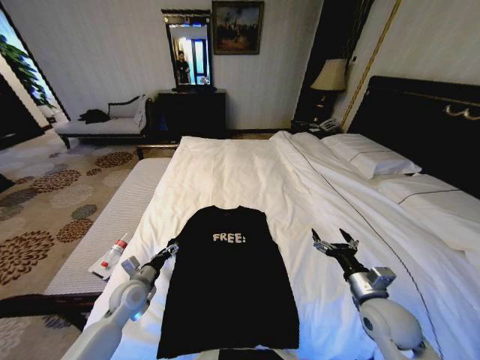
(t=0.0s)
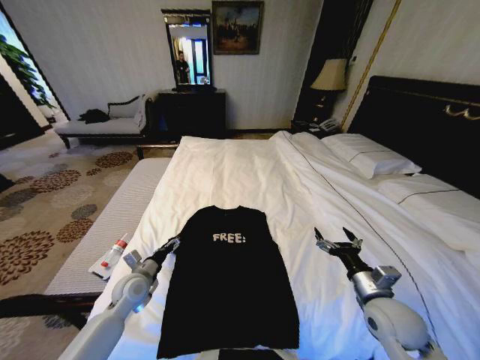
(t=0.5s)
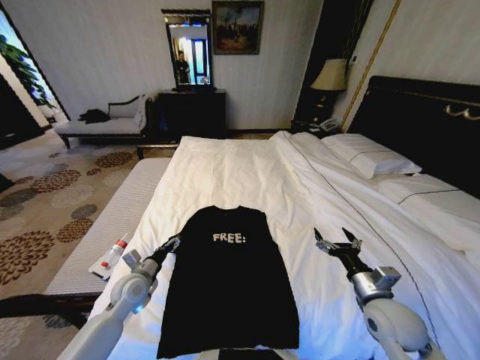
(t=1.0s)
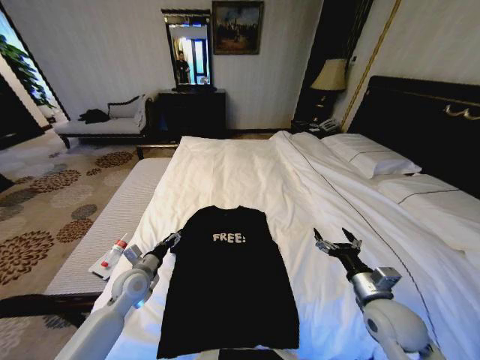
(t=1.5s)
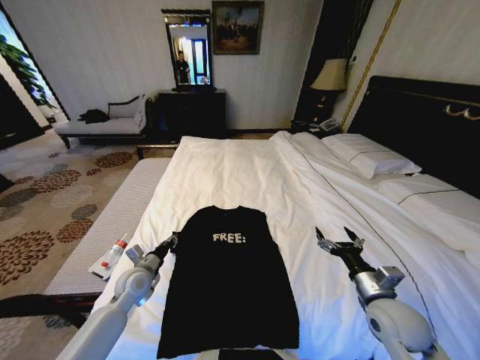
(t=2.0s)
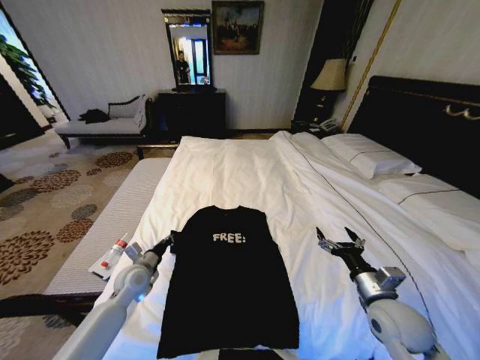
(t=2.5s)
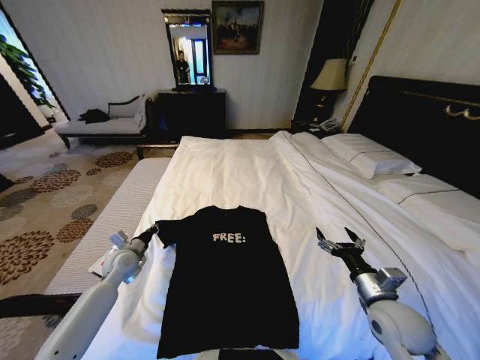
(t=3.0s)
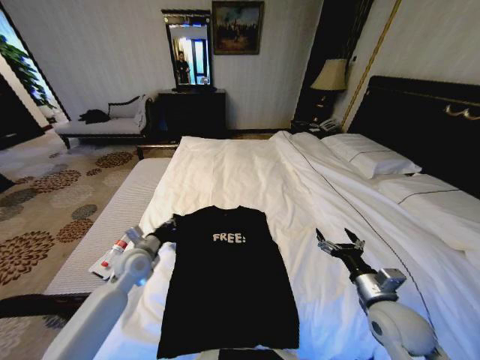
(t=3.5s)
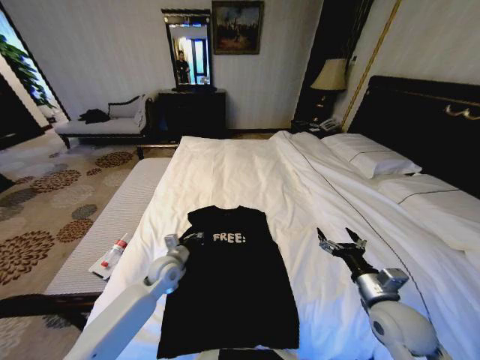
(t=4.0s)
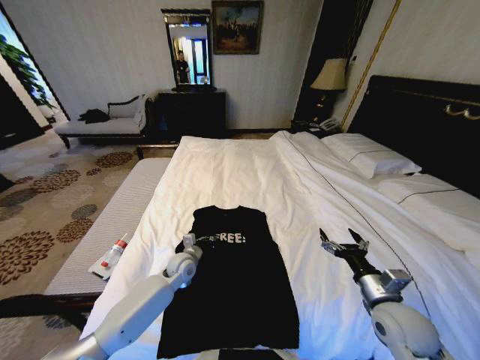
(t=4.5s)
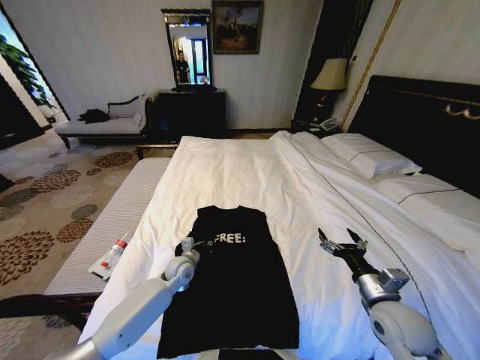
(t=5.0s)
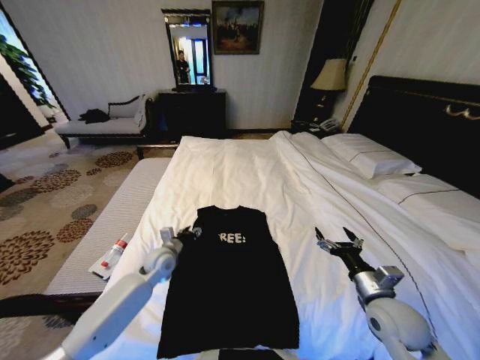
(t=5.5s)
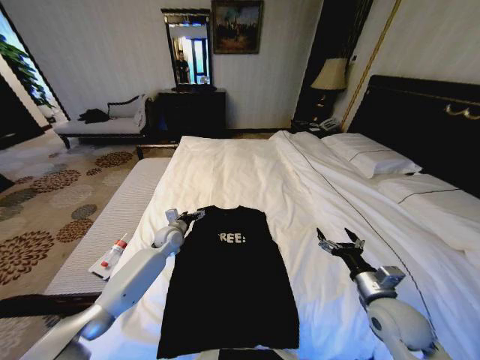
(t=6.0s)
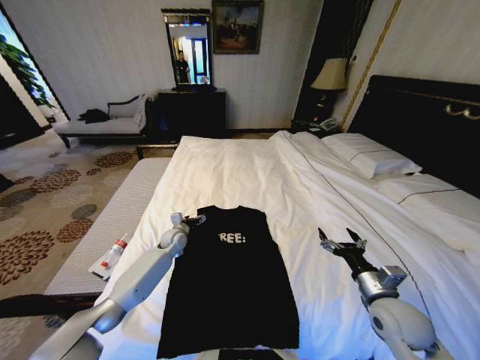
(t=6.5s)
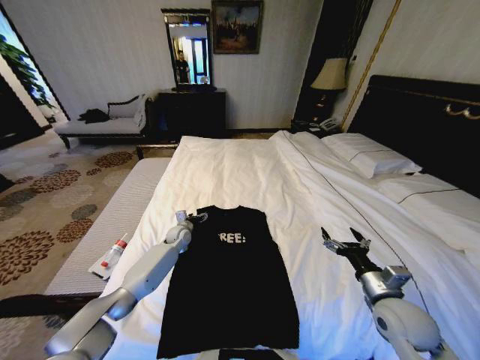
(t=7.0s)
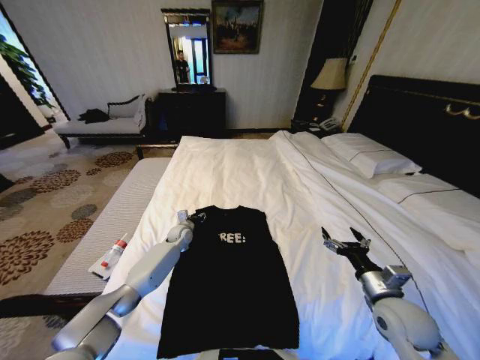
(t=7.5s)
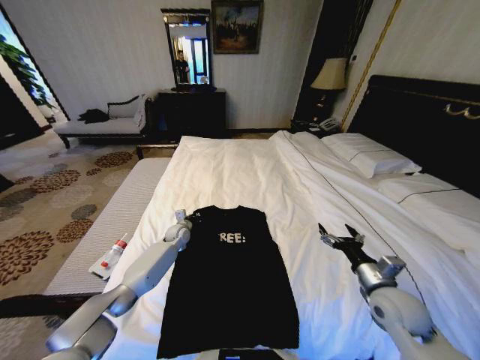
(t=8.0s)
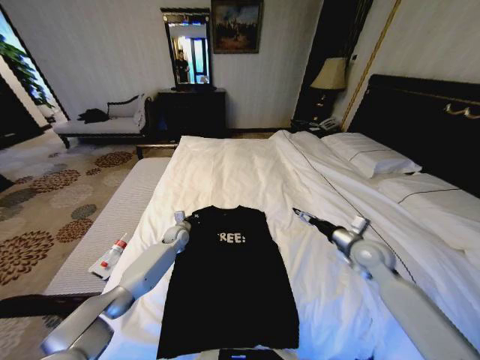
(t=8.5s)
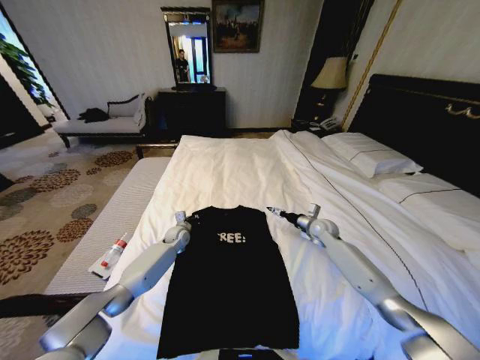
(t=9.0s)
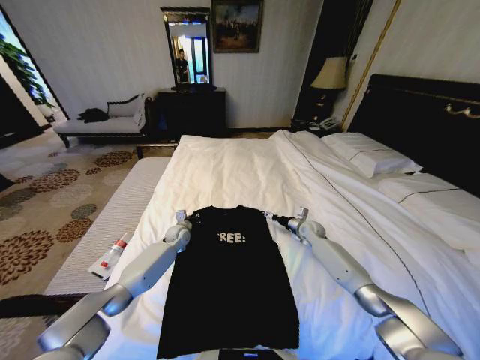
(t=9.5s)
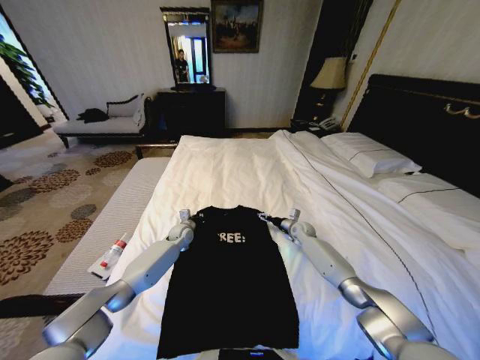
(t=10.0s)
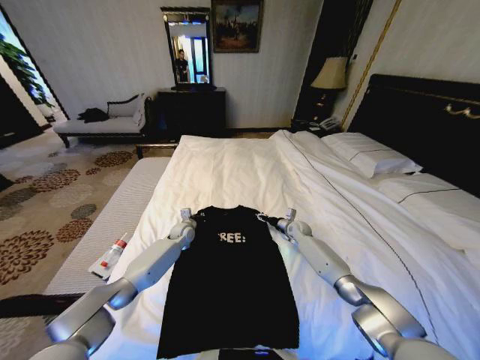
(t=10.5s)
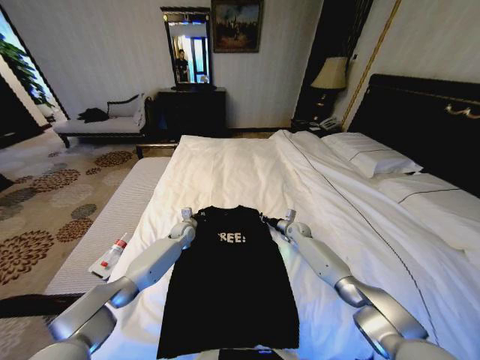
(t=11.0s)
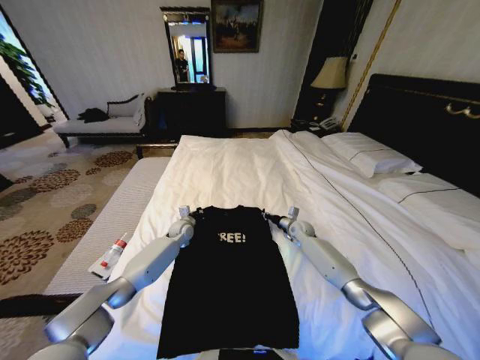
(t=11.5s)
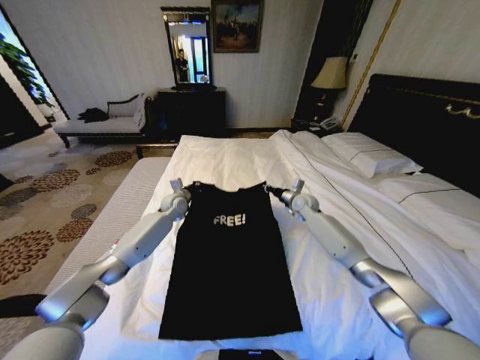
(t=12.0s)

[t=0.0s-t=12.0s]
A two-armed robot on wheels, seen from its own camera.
Task of the whole recording: Fold the clothes on the bed.
t=0.0s to t=2.0s: The left gripper closes.
t=2.0s to t=4.0s: The left gripper moves to the right, approximately 10 cm.
t=4.0s to t=6.0s: The left gripper shifts approximately 10 cm forward, and opens up.
t=6.0s to t=8.0s: The left gripper is displaced downward and forward by about 5 cm, and closes up.
t=8.0s to t=10.0s: The right gripper heads forward and downward, covering roughly 35 cm.
t=10.0s to t=12.0s: The left gripper is displaced upward and forward by about 15 cm. The right gripper shifts some 15 cm upward, and closes.

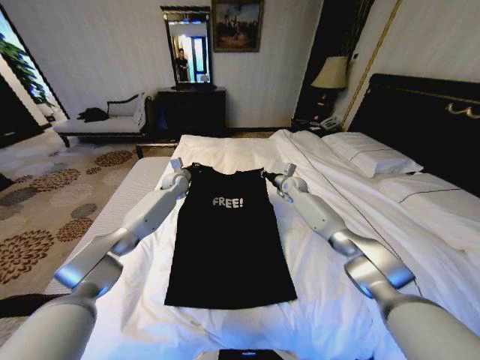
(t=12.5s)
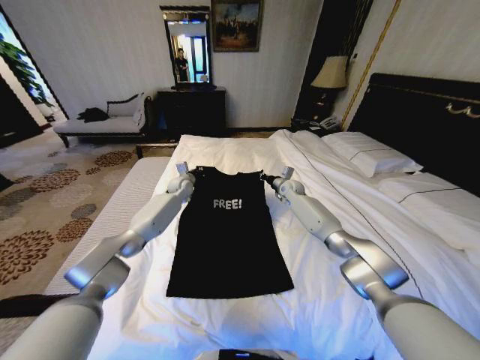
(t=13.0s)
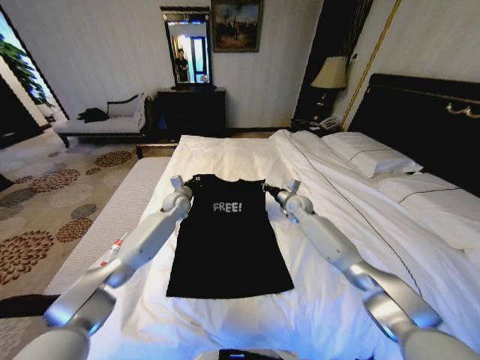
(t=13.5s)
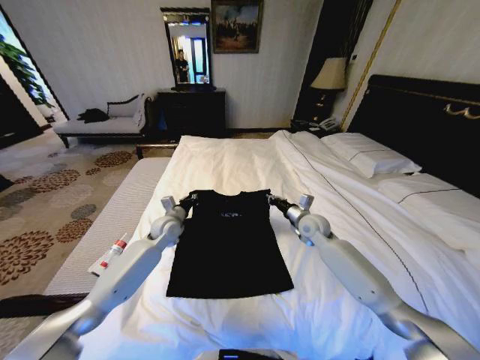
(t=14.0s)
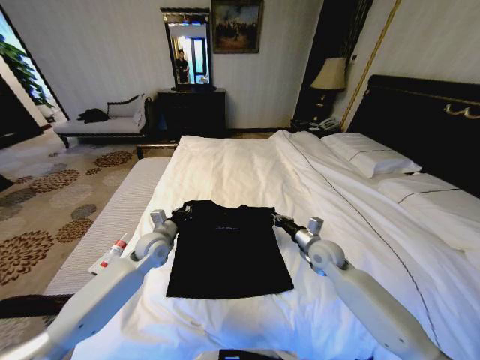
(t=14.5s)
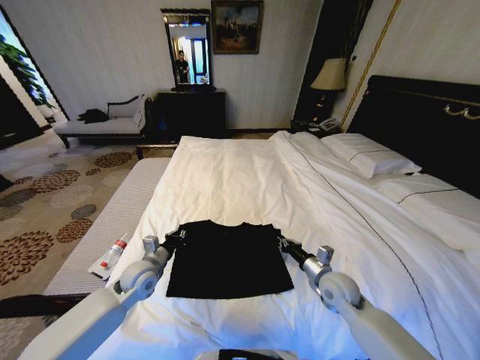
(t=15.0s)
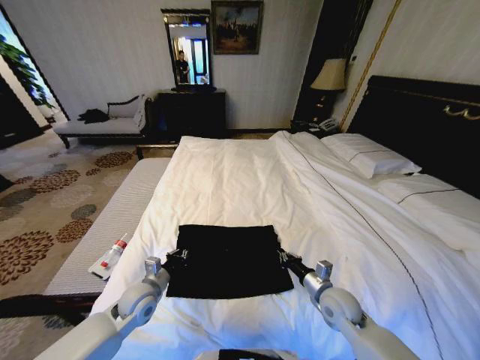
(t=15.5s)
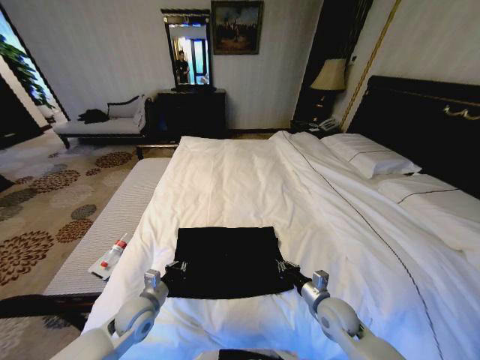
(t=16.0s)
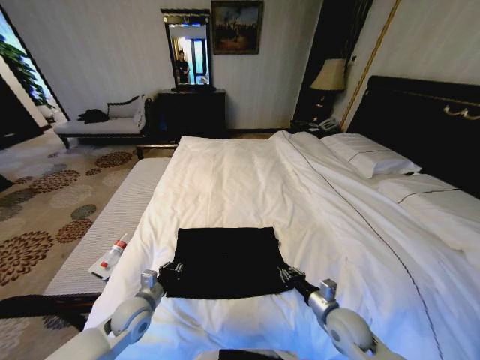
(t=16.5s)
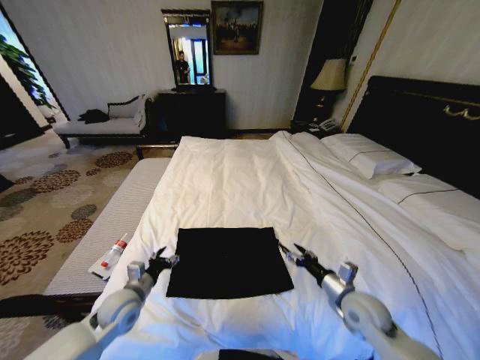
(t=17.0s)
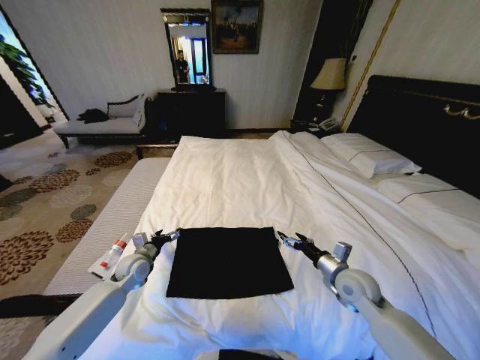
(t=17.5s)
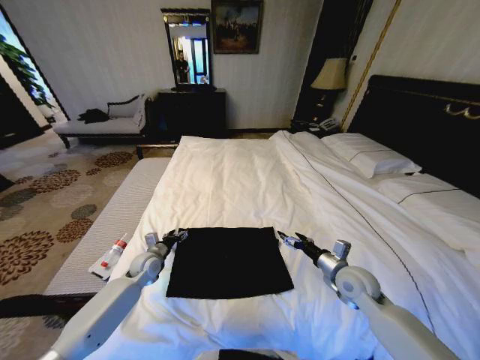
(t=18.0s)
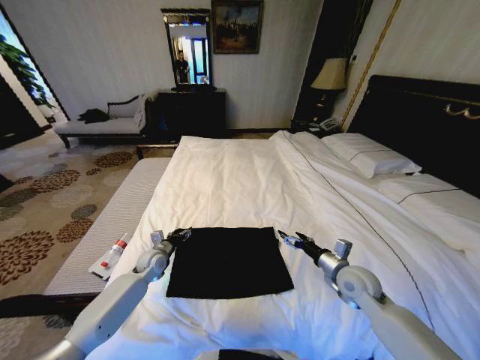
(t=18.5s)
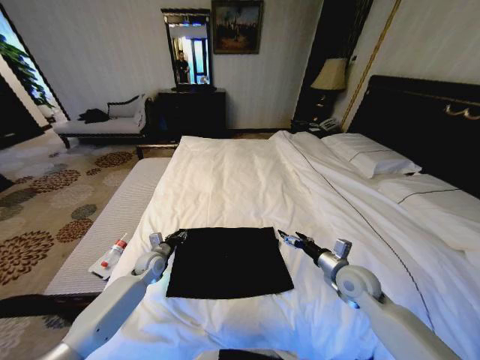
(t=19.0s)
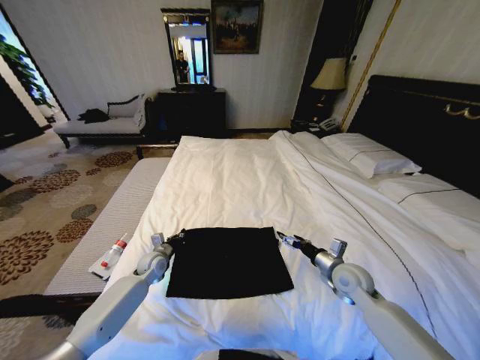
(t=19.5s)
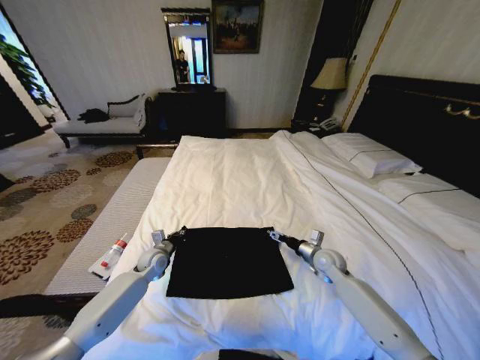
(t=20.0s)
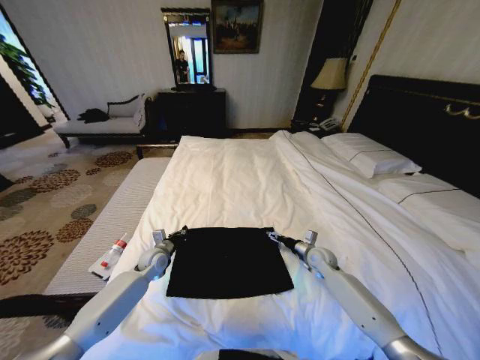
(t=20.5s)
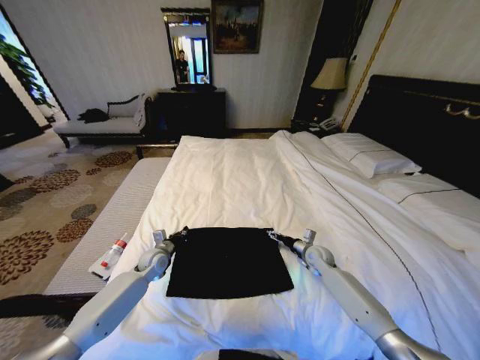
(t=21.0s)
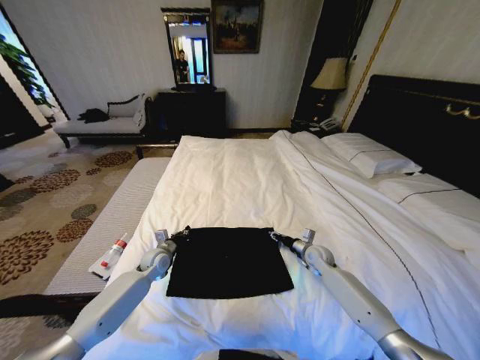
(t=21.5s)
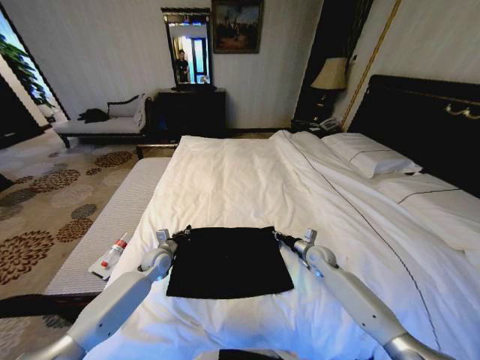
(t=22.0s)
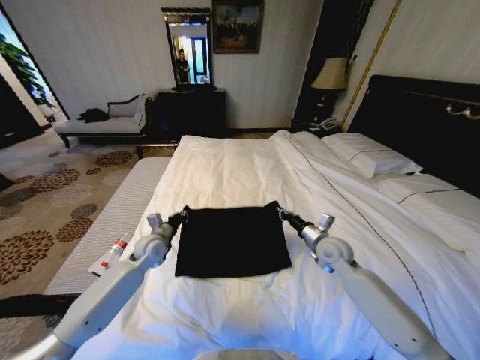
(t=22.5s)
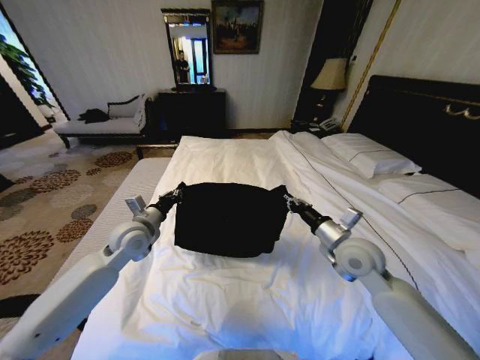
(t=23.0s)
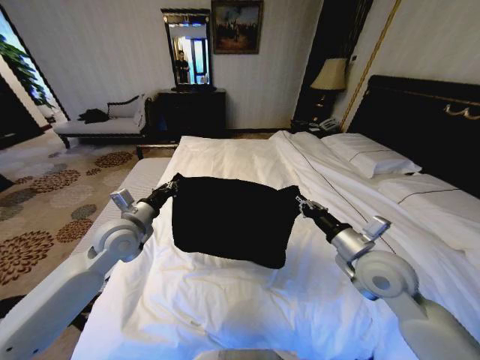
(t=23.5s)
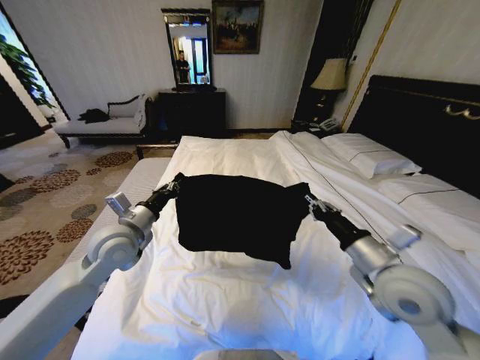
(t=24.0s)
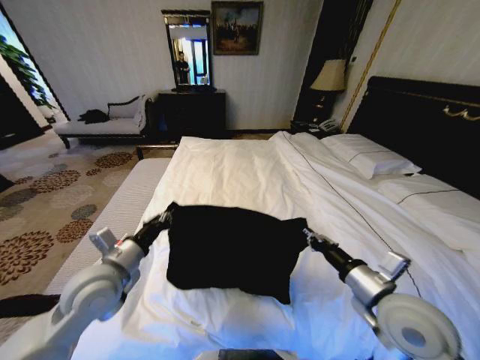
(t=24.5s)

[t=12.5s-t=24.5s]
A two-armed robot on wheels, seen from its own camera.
Task of the whole recording: Fold the clothes on the bed.
t=12.5s to t=14.5s: The two grippers go about 25 cm backward.
t=14.5s to t=16.5s: The grippers both shift backward and downward by some 20 cm.
t=16.5s to t=18.5s: The right gripper heads forward and upward, covering approximately 10 cm, and opens, while the left gripper shifts roughly 15 cm forward, and opens.
t=18.5s to t=20.5s: The left gripper closes up; the right gripper heads forward and downward, covering about 15 cm.
t=20.5s to t=22.5s: The right gripper moves upward, approximately 10 cm, and closes. The left gripper moves upward, roughly 10 cm.
t=22.5s to t=24.5s: The two grippers go about 20 cm backward and upward.

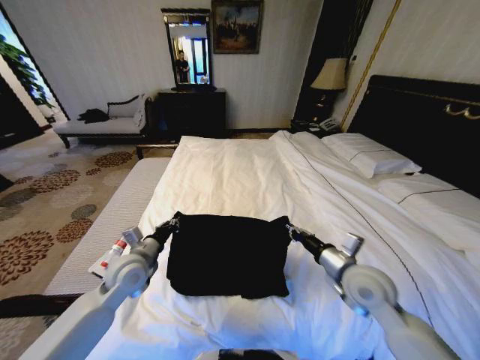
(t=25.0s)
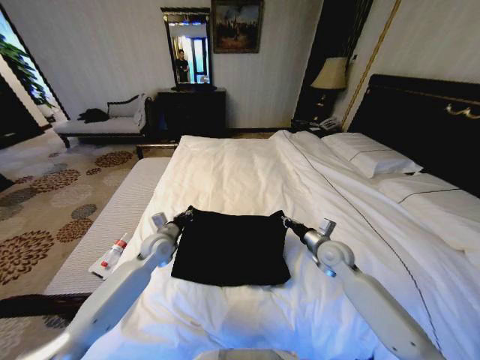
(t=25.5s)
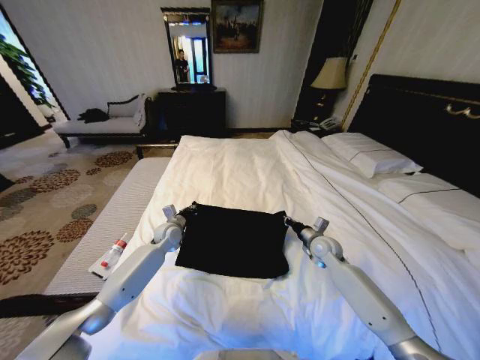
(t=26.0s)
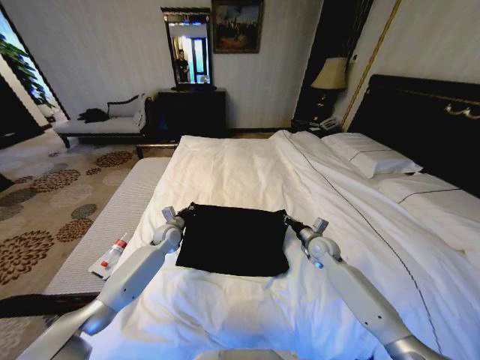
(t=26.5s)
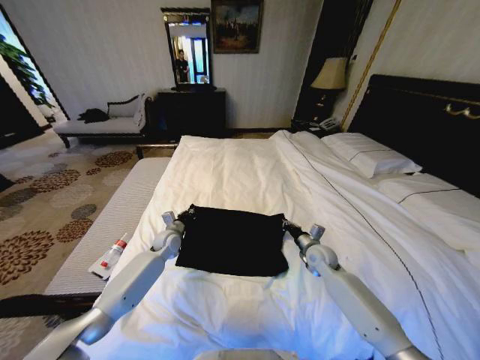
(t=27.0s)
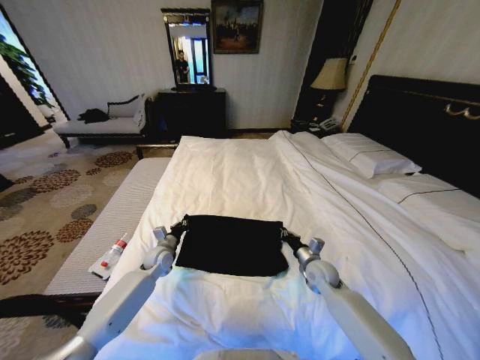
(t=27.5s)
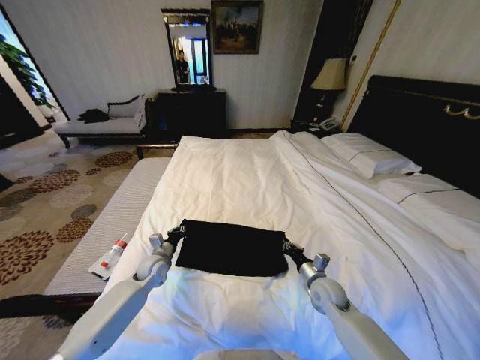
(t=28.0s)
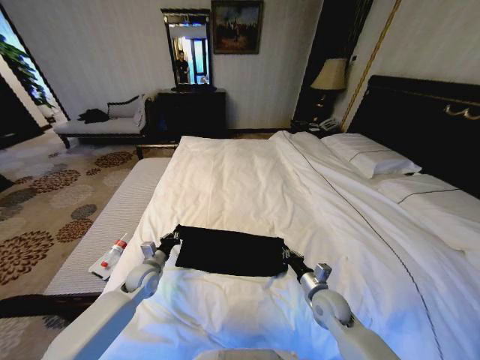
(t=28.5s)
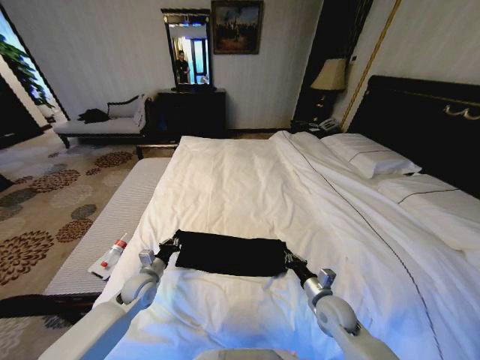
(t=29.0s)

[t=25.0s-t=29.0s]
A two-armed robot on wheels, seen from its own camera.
Task of the whole recording: Fold the clothes on the bed.
t=25.0s to t=27.0s: The right gripper moves downward and forward, some 20 cm; the left gripper goes some 20 cm forward and downward.
t=27.0s to t=29.0s: Both grippers move backward, approximately 15 cm.
